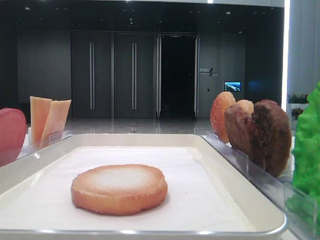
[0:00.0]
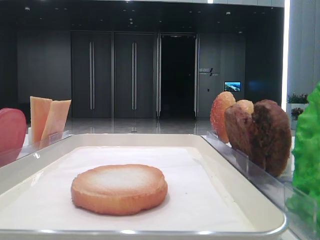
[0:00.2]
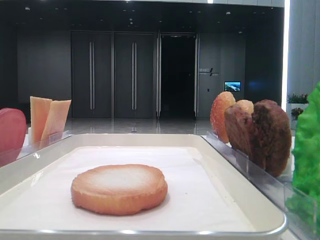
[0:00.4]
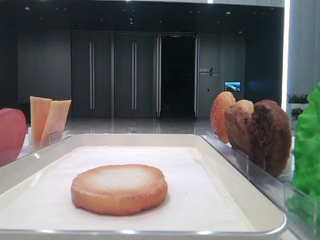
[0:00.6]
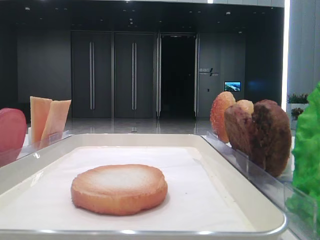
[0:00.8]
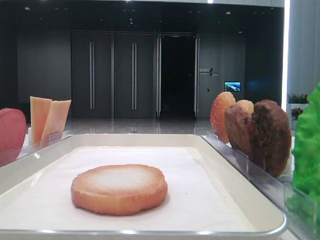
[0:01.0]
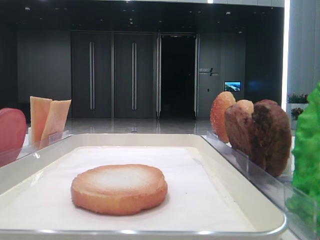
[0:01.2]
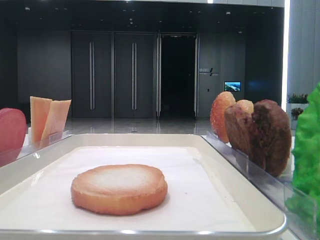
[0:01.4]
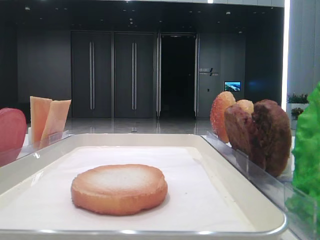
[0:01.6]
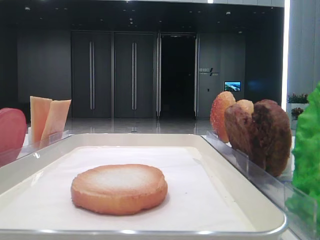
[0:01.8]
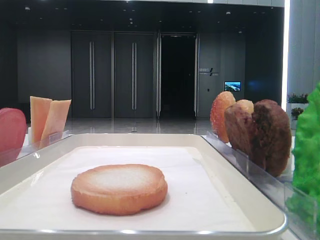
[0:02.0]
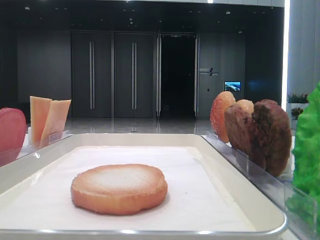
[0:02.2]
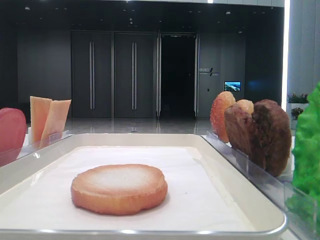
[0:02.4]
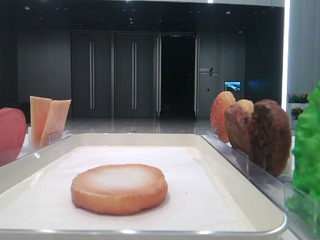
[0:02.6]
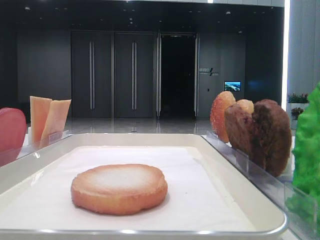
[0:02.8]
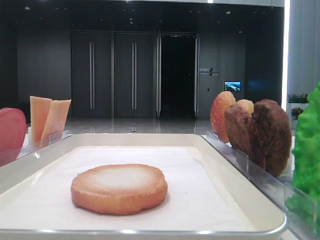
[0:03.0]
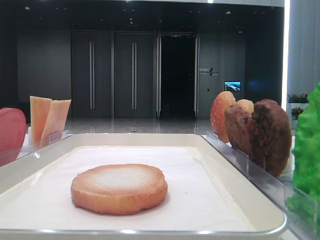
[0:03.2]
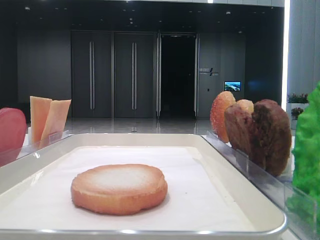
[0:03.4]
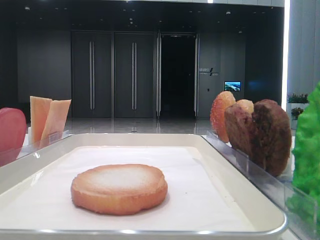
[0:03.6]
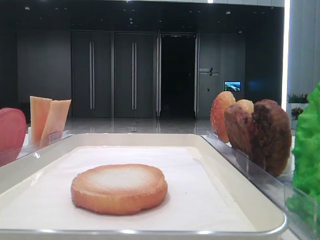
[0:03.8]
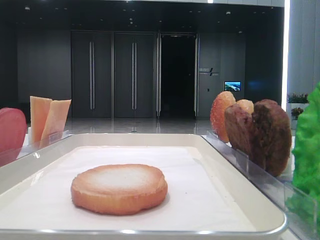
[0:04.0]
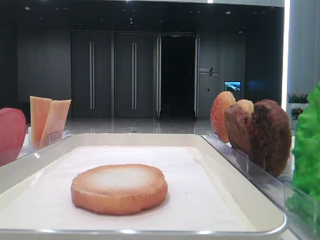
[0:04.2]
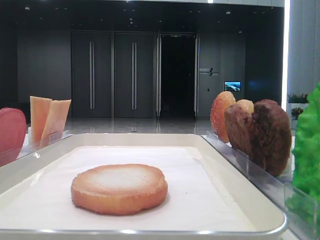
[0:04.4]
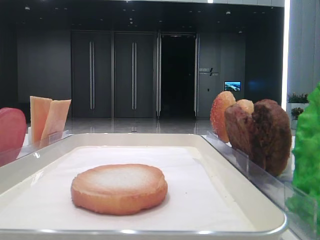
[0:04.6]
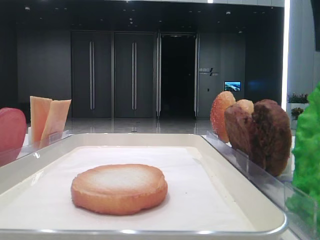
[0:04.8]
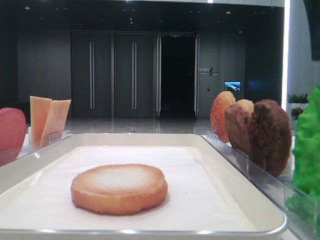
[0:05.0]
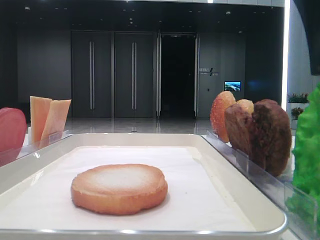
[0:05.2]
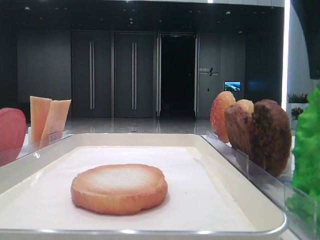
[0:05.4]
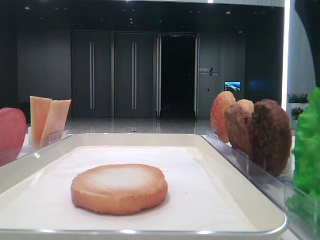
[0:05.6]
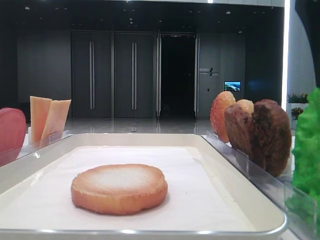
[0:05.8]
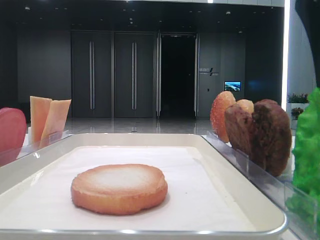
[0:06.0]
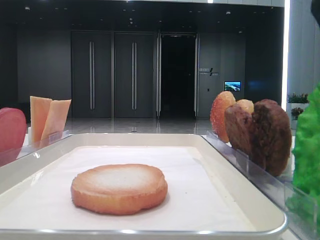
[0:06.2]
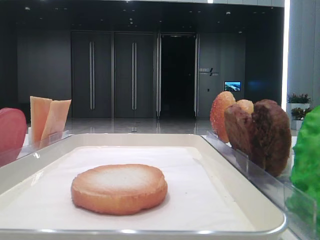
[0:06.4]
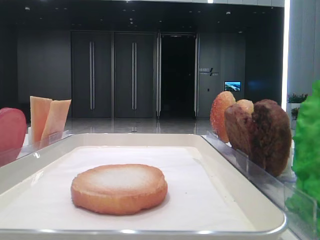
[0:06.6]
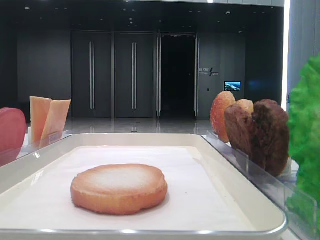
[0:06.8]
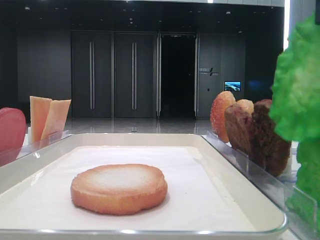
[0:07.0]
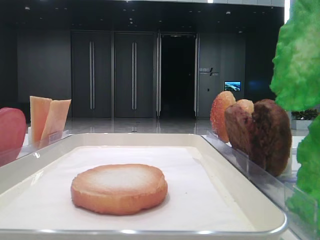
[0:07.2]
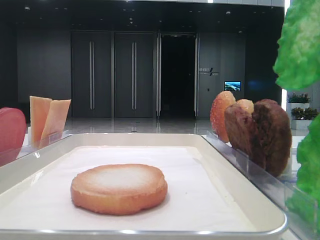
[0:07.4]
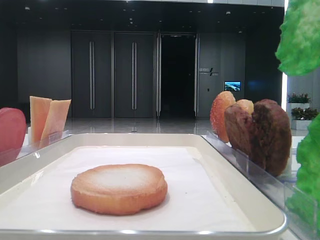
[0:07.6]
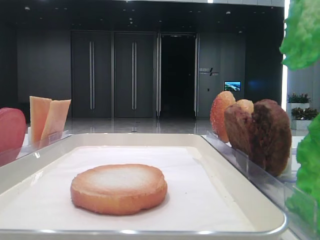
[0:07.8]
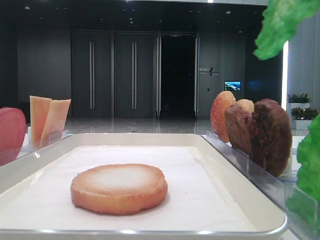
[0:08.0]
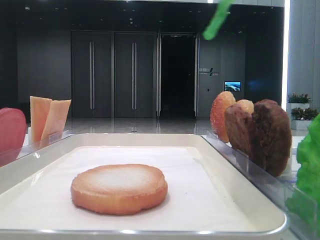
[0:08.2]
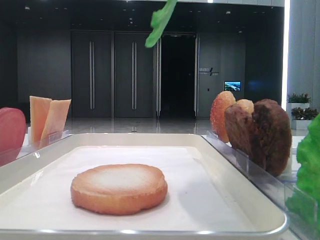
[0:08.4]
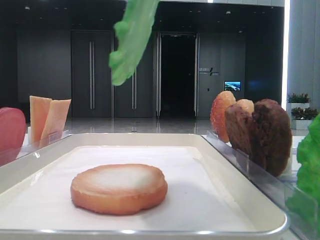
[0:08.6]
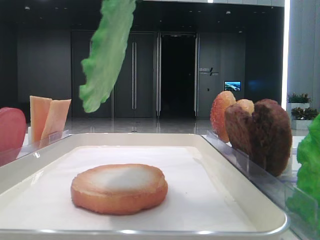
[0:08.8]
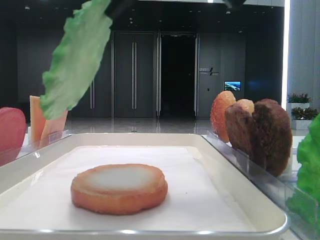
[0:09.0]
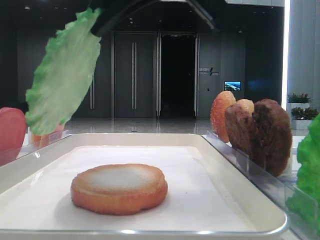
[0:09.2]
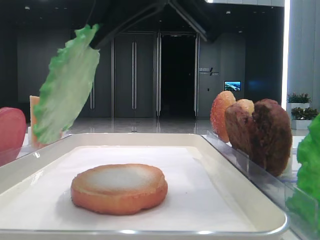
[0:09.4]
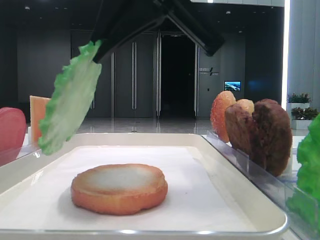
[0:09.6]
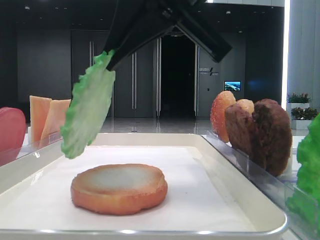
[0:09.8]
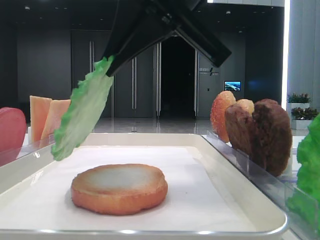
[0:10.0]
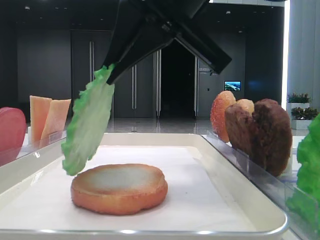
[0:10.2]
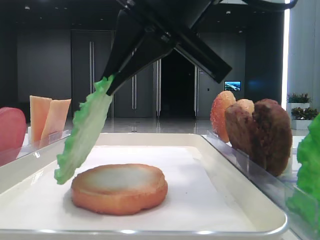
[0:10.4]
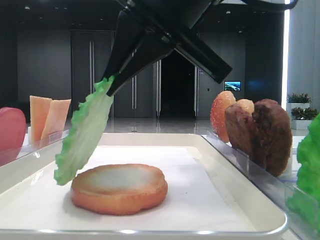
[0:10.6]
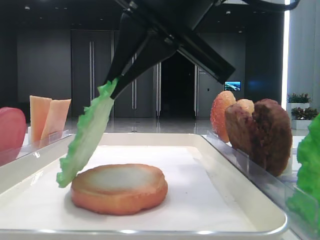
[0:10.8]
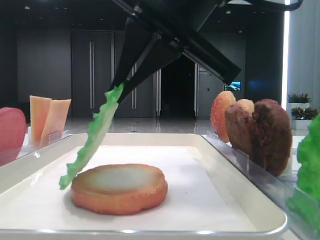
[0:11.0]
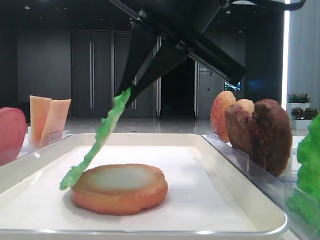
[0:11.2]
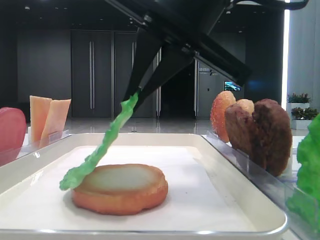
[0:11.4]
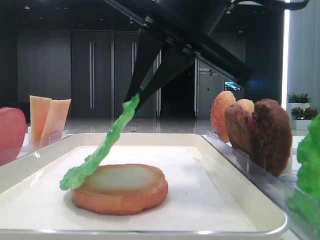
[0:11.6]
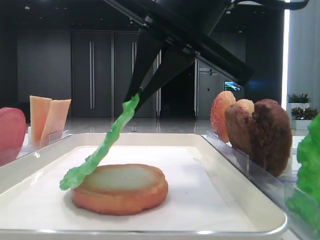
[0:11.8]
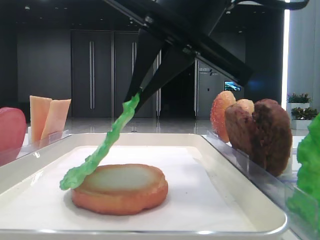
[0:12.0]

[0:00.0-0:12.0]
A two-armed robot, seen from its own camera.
Step, 0:00.0 to 0:06.2: Grab the lettuce leaf with the right hand.
0:04.4 to 0:06.0: The right gripper ends up approximately 5 cm from where it was.
0:06.0 to 0:07.6: The right gripper moves upward, about 10 cm, and closes up.
0:07.6 to 0:09.0: The right gripper heads to the left and downward, covering about 15 cm, while the left gripper closes up.
0:09.0 to 0:10.4: The right gripper travels downward by some 5 cm.
0:10.4 to 0:12.0: There are only small adjustments of the grippers.

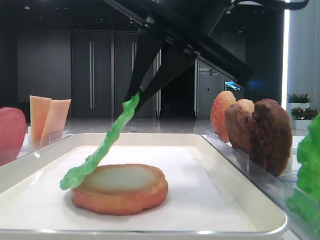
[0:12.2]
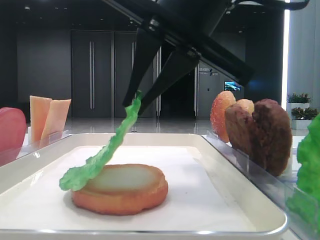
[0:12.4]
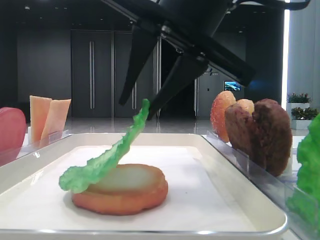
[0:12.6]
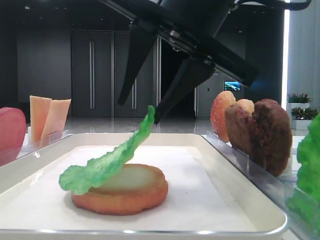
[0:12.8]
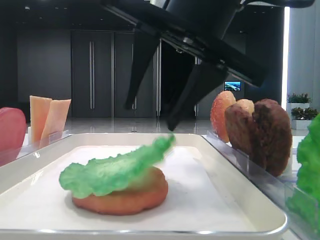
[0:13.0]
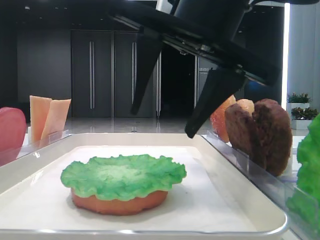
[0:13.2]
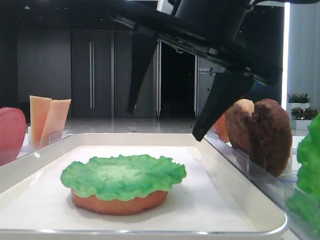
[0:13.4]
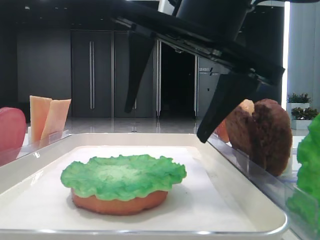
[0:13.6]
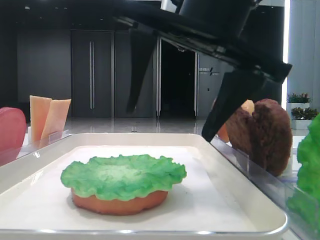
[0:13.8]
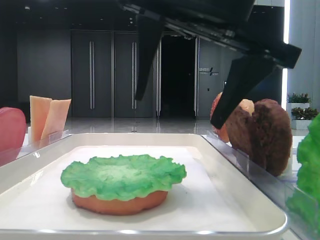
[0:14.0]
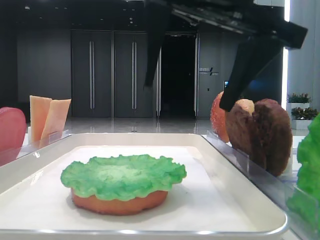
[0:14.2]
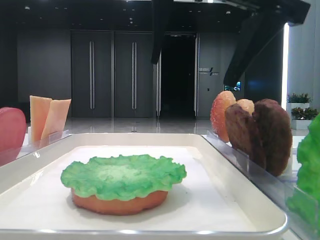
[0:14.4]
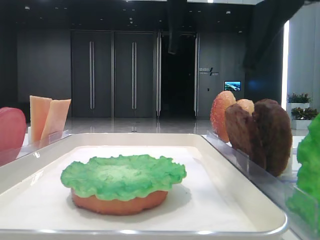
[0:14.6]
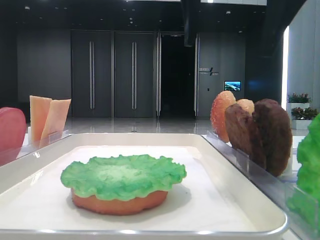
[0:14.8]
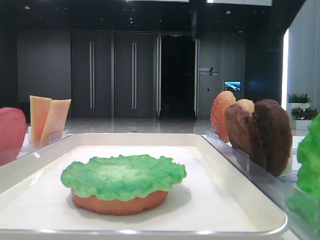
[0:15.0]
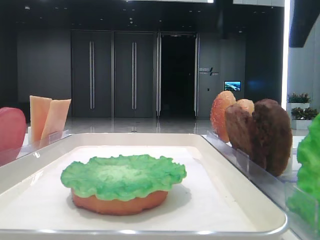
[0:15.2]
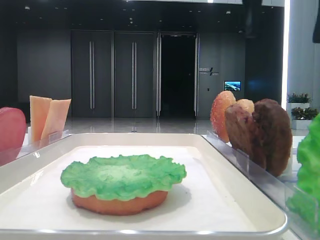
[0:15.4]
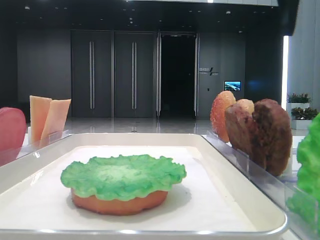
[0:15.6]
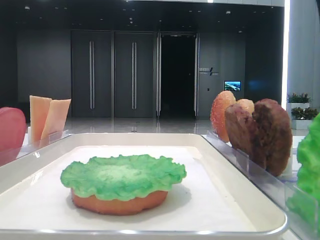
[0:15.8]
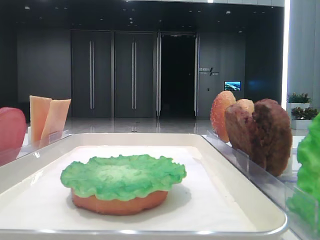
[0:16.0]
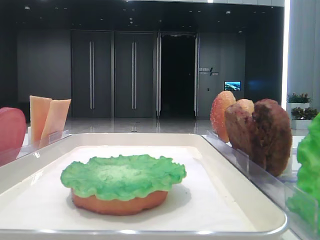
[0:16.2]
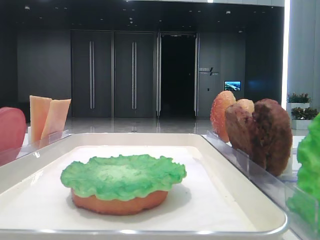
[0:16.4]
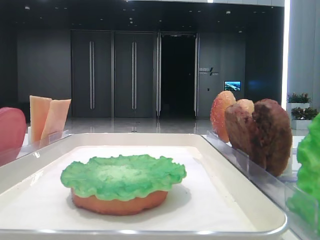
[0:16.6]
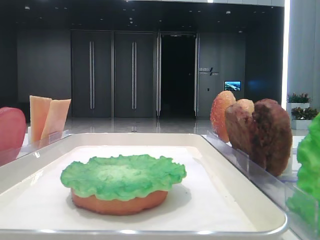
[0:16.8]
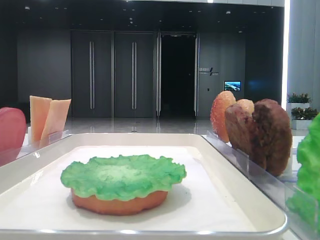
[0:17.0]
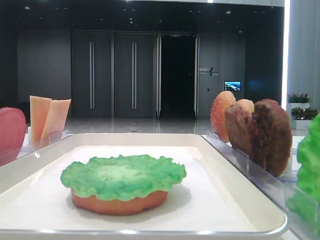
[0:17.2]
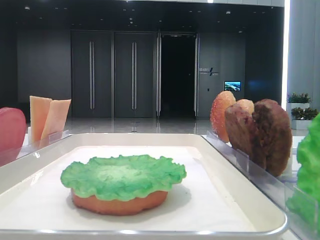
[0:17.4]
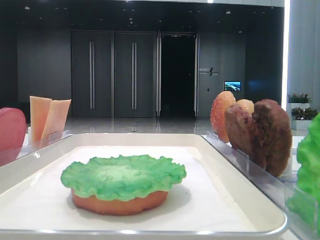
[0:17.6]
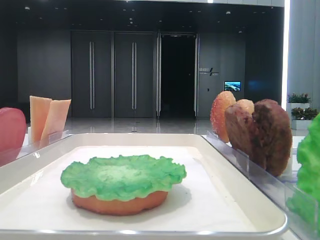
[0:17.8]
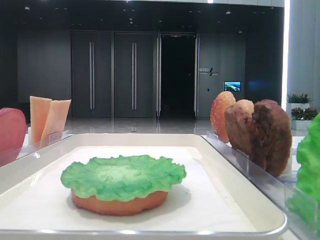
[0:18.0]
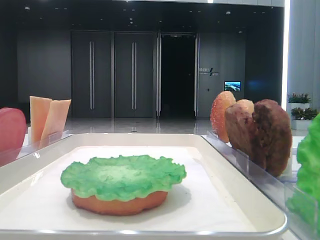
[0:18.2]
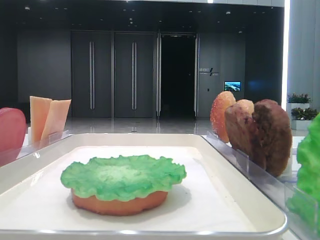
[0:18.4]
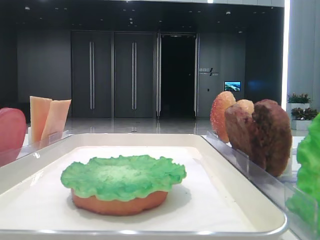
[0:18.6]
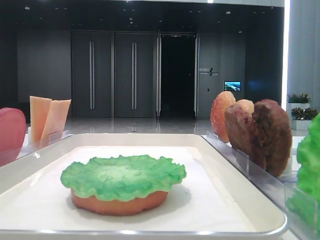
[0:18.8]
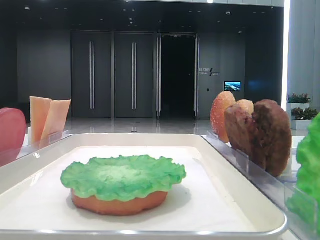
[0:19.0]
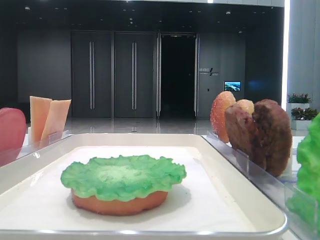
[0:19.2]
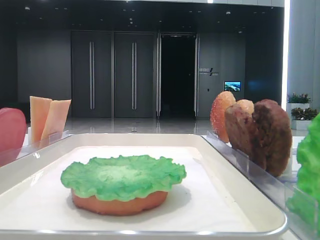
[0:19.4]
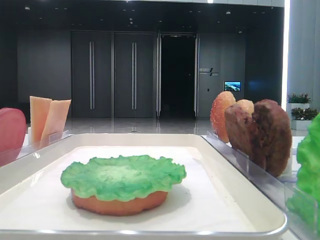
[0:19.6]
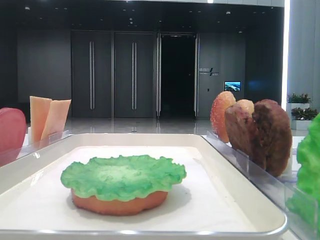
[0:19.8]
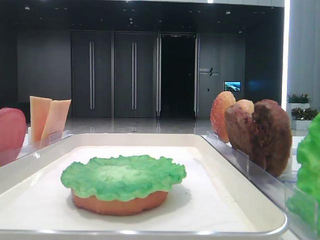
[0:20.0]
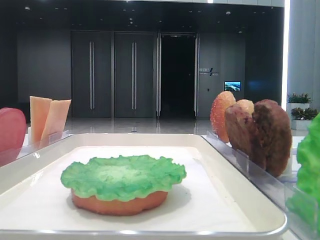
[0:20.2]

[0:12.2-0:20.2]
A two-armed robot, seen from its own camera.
0:12.2 to 0:13.8: The right gripper opens.
0:13.8 to 0:15.4: The right gripper travels upward and to the right by about 15 cm.
0:15.4 to 0:17.0: The right gripper heads to the right, covering approximately 15 cm.

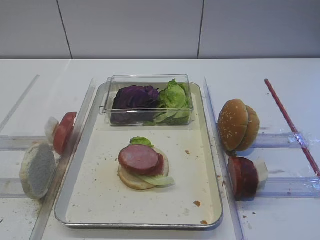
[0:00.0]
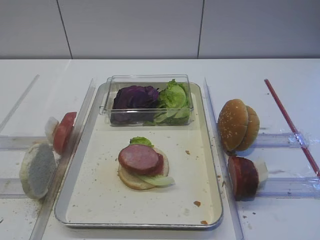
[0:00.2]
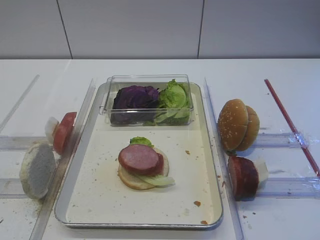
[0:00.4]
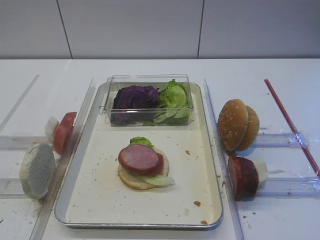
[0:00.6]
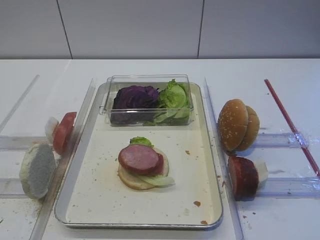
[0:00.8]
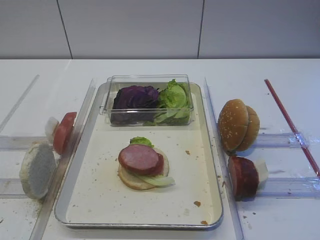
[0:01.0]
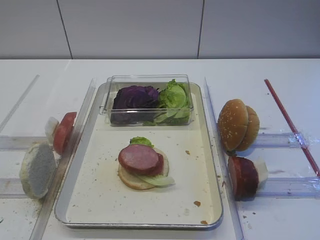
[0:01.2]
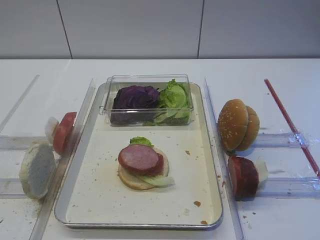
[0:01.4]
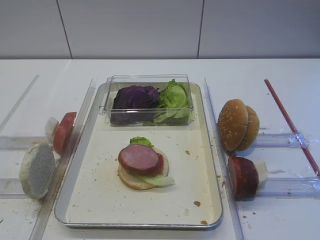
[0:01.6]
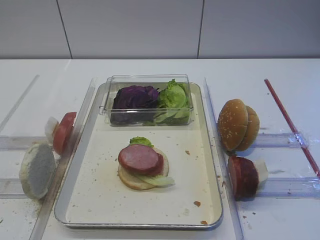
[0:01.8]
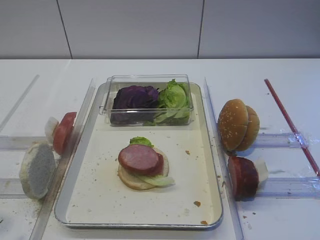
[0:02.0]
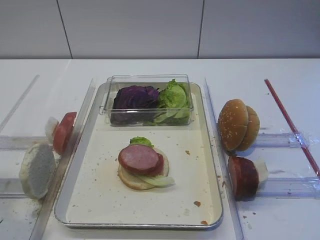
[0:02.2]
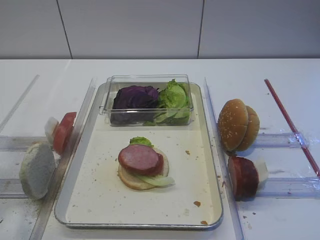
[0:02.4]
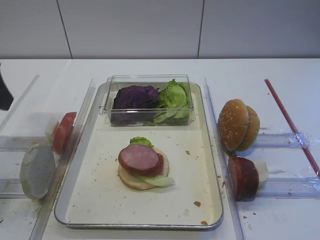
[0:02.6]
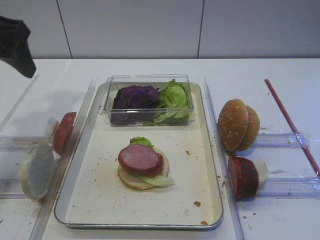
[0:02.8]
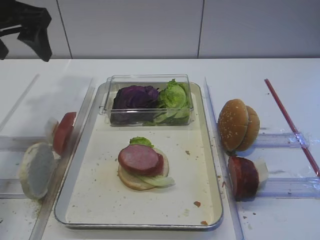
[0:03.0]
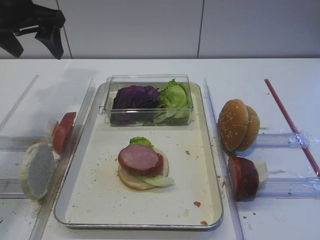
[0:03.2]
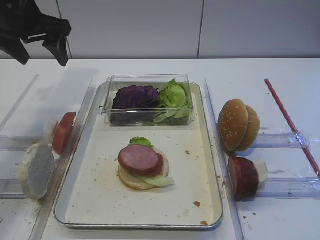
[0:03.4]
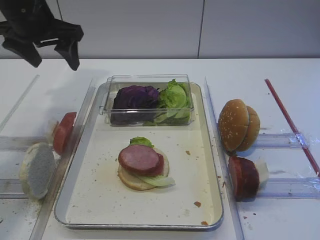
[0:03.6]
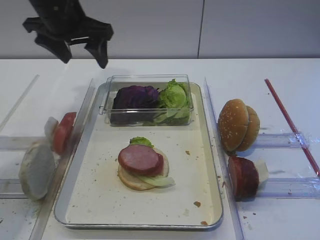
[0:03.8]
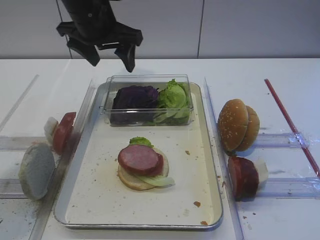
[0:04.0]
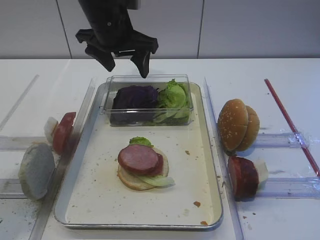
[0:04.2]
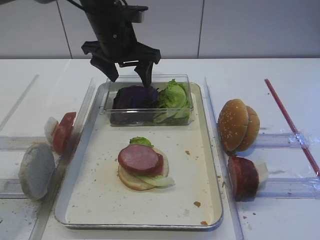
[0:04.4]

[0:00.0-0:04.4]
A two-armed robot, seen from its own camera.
0:01.4 to 0:03.0: The left gripper travels forward by roughly 30 cm.
0:03.0 to 0:04.4: The left gripper goes roughly 20 cm to the right, forward and downward.
